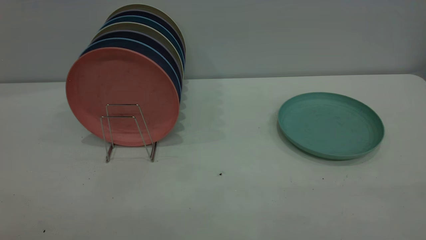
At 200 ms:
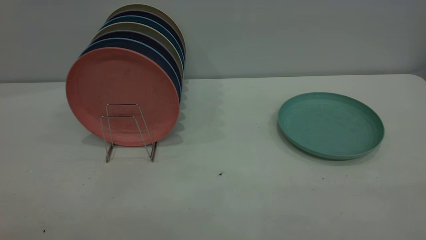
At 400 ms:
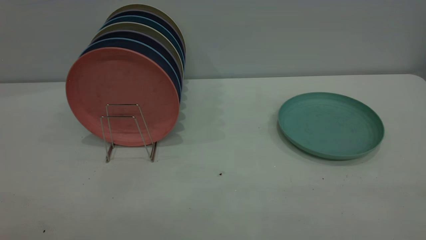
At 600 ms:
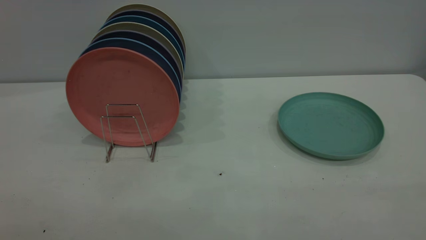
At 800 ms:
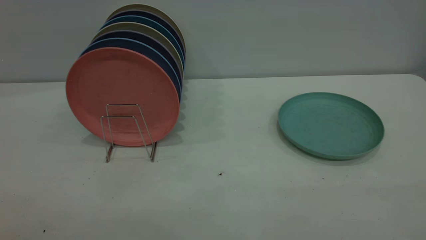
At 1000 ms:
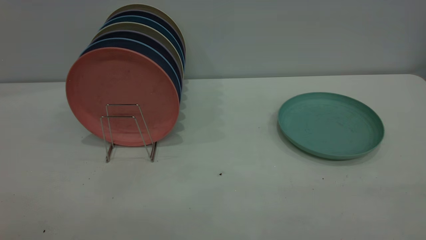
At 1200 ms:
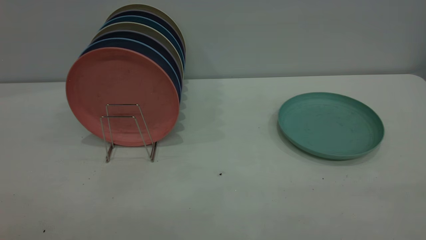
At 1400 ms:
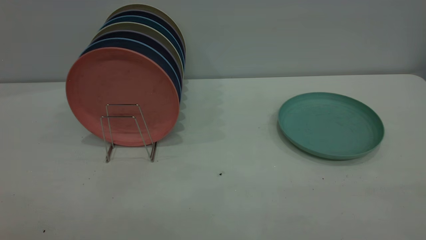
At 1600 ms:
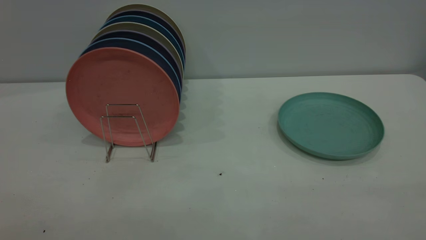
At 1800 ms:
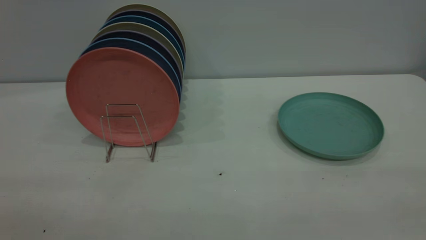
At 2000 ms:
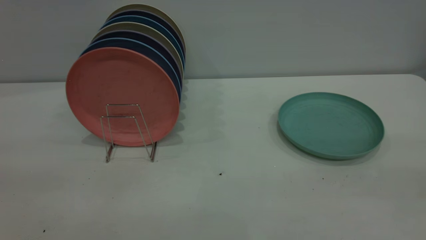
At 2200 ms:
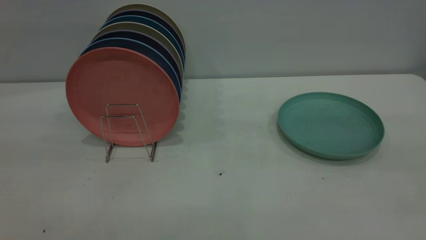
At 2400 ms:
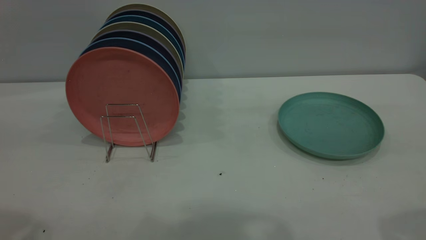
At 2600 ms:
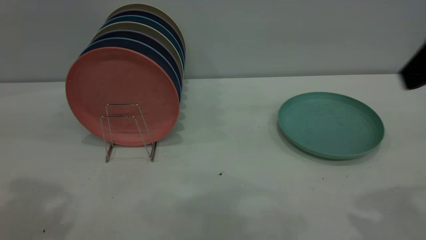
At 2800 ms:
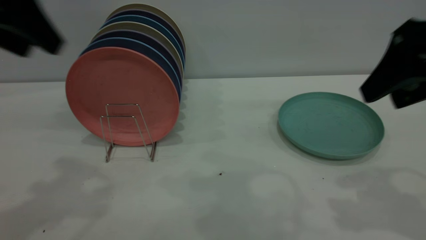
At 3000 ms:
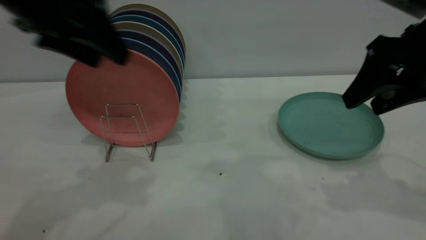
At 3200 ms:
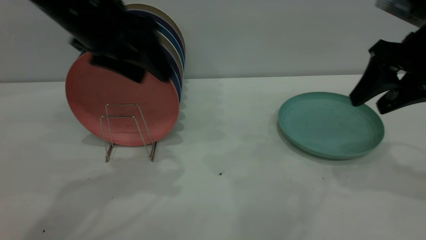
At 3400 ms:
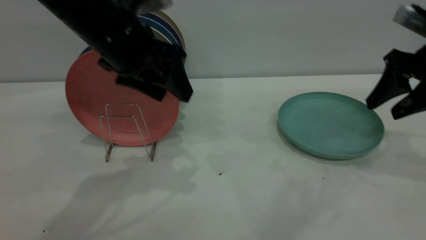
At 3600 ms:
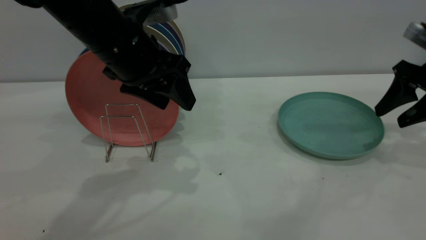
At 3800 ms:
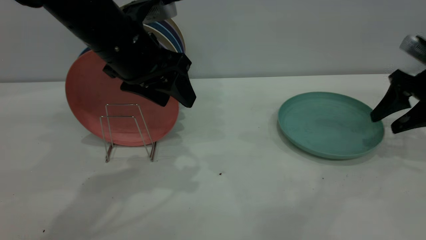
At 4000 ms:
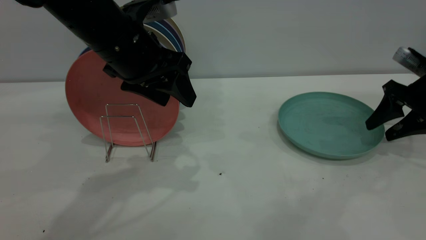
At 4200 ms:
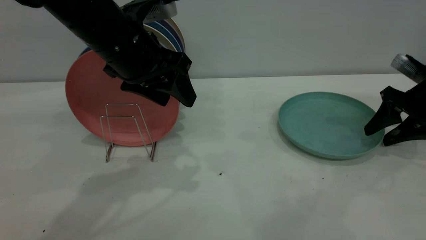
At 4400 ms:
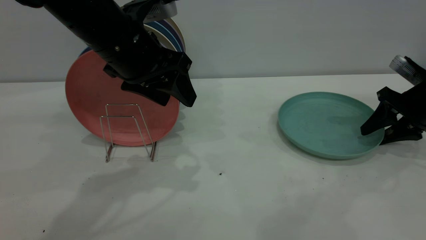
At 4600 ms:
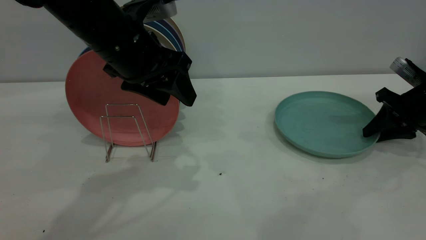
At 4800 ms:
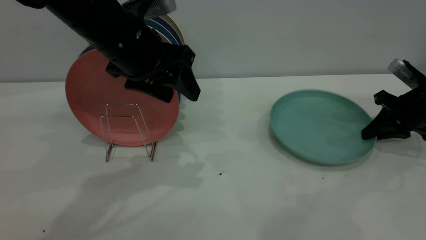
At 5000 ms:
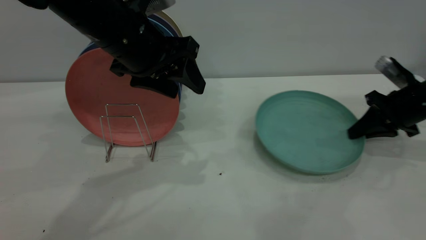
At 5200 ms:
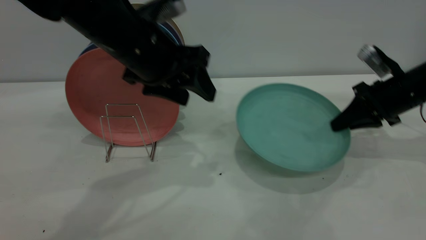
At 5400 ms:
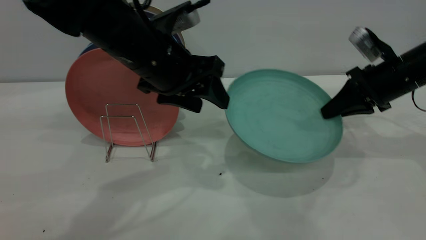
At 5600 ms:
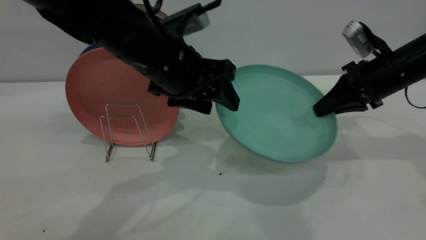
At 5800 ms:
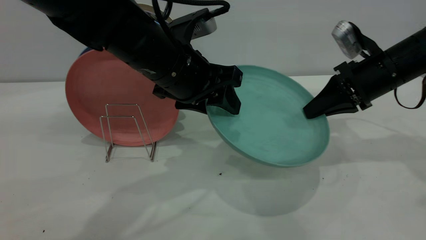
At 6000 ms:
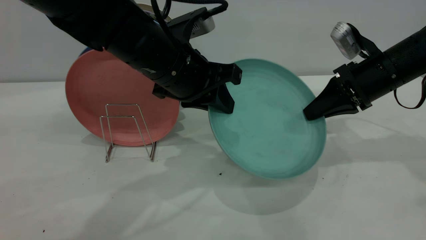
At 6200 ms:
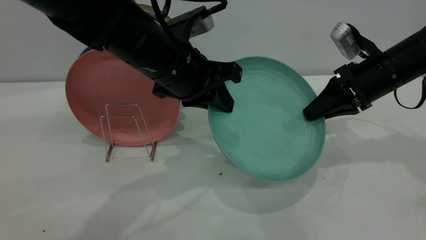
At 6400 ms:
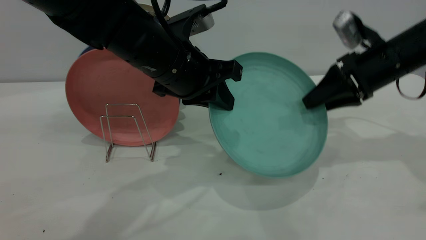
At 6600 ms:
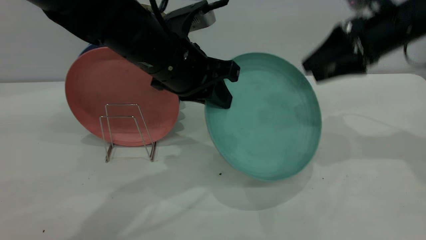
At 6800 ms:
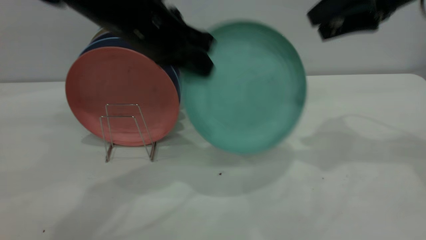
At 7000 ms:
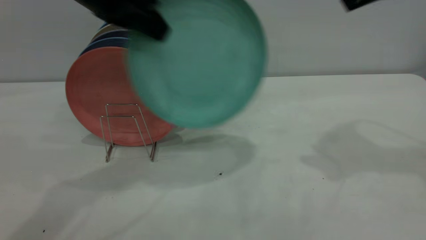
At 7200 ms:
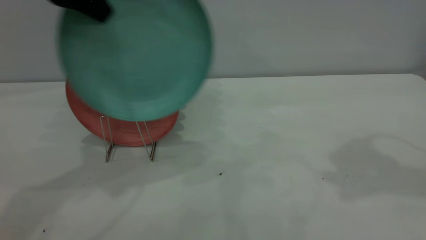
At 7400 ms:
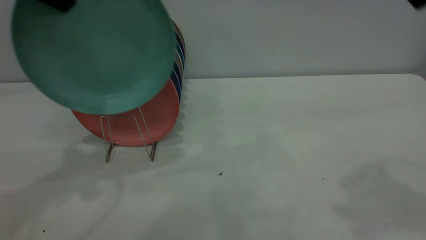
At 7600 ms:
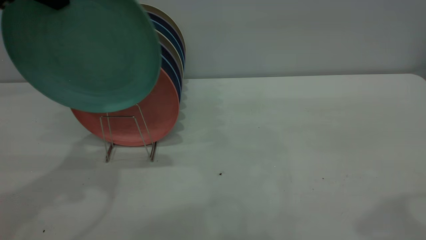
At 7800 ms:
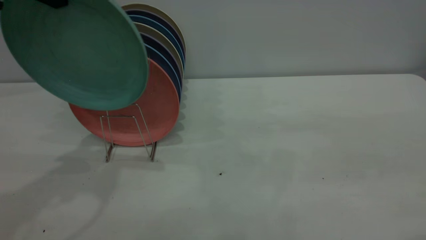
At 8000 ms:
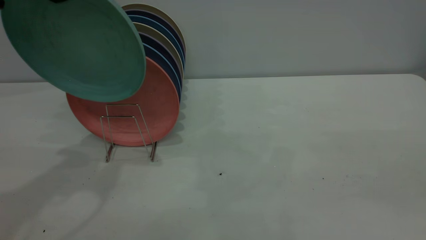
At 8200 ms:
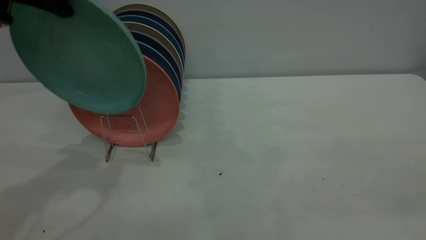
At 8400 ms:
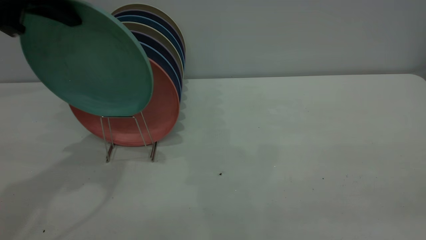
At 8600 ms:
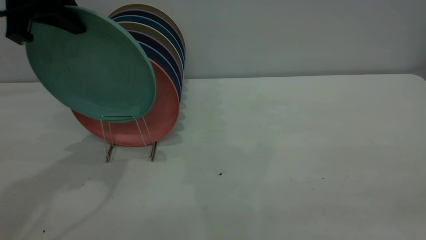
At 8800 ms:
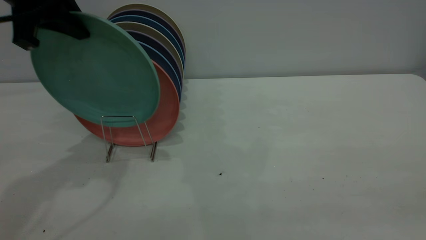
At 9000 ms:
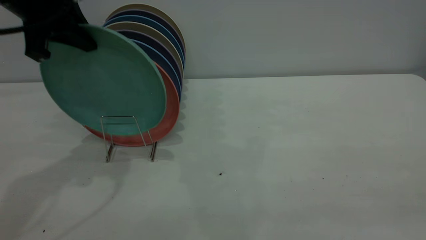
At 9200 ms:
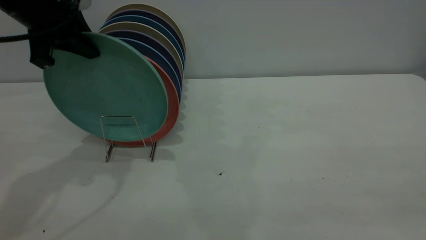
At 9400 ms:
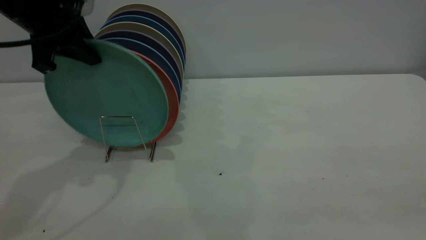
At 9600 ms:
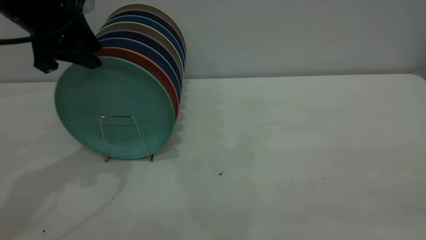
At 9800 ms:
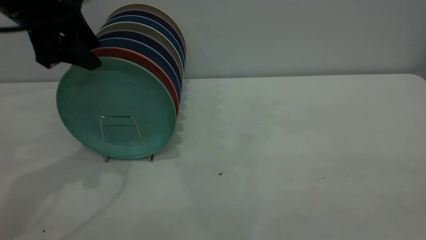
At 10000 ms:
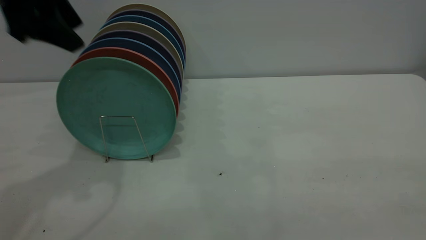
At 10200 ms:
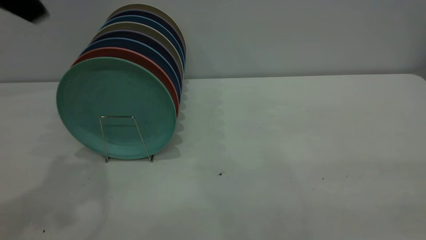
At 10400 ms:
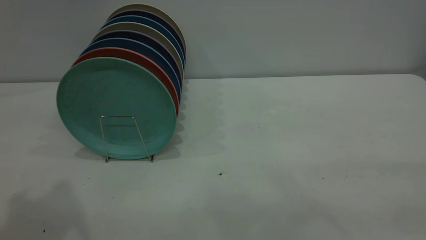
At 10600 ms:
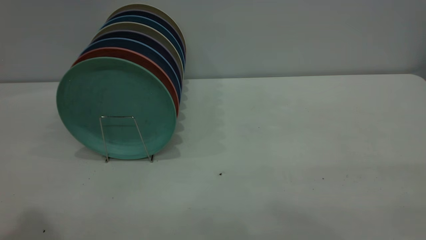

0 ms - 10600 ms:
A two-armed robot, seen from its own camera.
Task of the whole recording: the right gripper grasp the green plate, the right gripper pass the green plate to the left gripper, and the left gripper place the green plate on the plate rack.
Step, 0 ms - 5000 ms: Pick up the plate with the right gripper.
Step, 5400 ms - 6600 ms: Pass the plate from the right gripper to the left gripper.
Step, 6800 ms - 9800 ms: Place the plate on the shelf.
0 ms - 1600 ms: The two grippers keep their place.
1600 ms - 3000 ms: Both grippers move forward, roughly 35 cm.
3000 ms - 4600 ms: The right gripper is displaced downward, forward and to the right by some 25 cm, and closes, while the left gripper goes approximately 10 cm downward and to the right.
4600 ms - 6000 ms: The right gripper shifts approximately 10 cm to the left and upward. The left gripper moves to the right, some 5 cm, and closes its fingers.
6000 ms - 7600 ms: The right gripper shifts some 30 cm upward and backward, and opens its fingers; the left gripper shifts approximately 25 cm upward and to the left.
7600 ms - 9000 ms: The left gripper shifts about 5 cm downward.
9000 ms - 10600 ms: The left gripper heads backward and upward, covering approximately 25 cm, and opens up.

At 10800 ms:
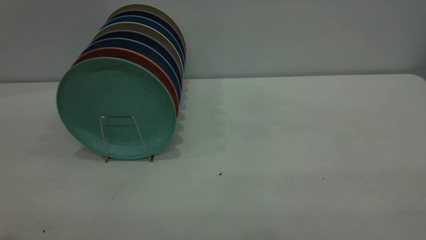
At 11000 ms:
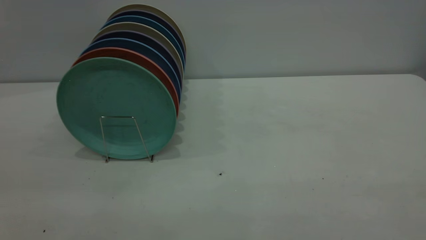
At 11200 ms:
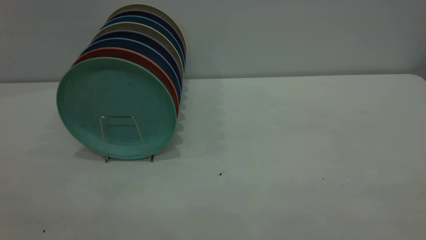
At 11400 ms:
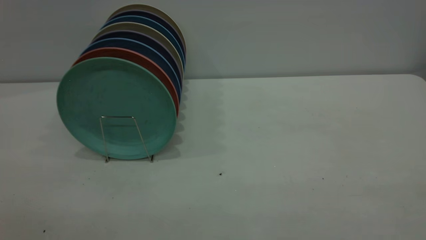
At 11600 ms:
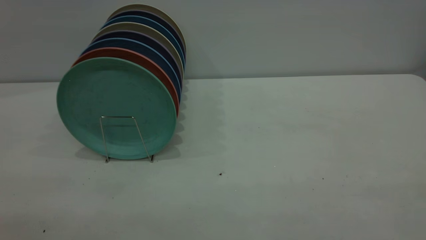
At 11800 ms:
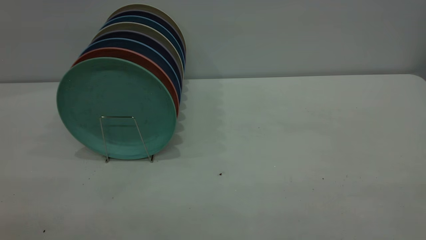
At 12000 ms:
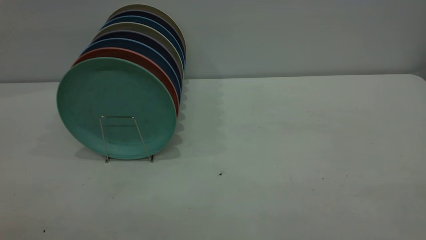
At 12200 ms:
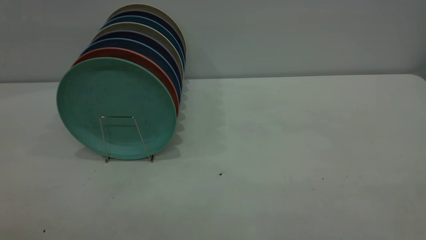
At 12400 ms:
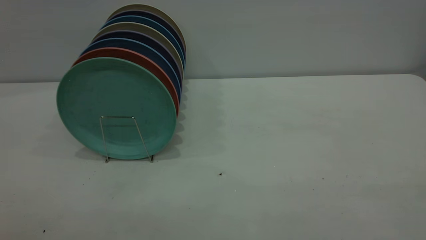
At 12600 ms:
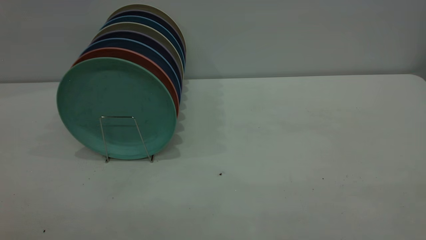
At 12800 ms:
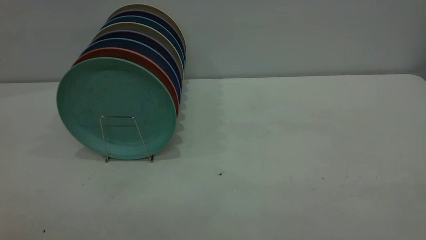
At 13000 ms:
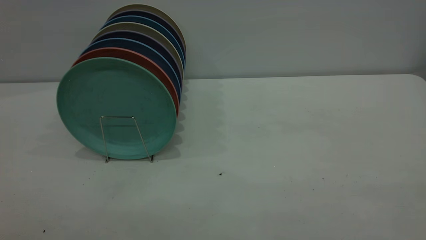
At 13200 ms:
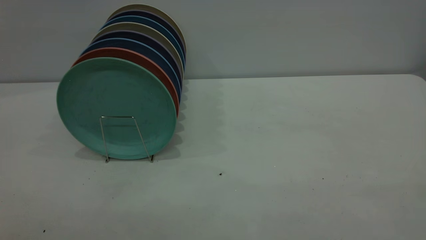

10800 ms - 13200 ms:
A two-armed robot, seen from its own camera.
Task of the whole recording: the right gripper grasp the green plate, the right gripper pass the green plate to the left gripper, and the left gripper place the green plate on the plate rack.
12000 ms - 13200 ms: Both grippers stay put.
